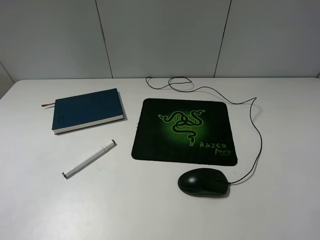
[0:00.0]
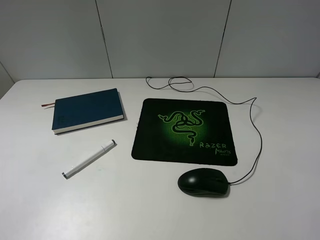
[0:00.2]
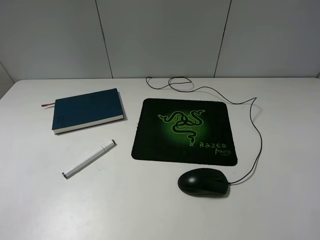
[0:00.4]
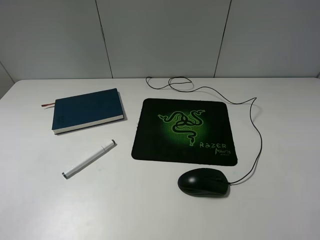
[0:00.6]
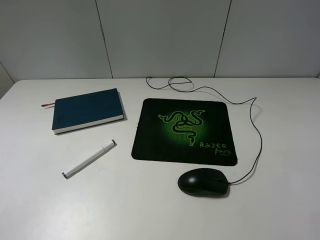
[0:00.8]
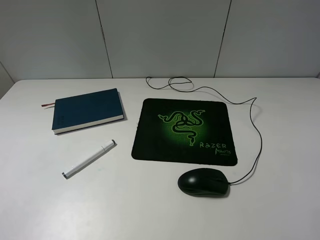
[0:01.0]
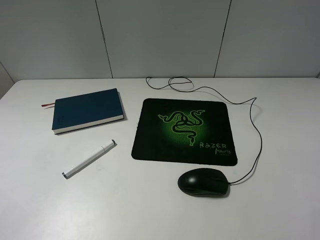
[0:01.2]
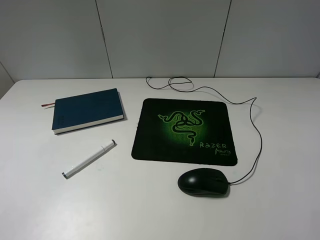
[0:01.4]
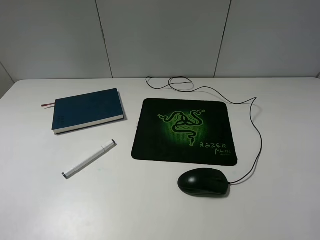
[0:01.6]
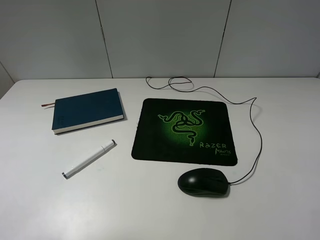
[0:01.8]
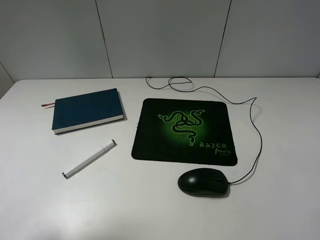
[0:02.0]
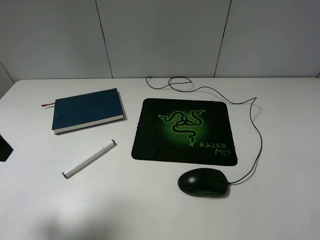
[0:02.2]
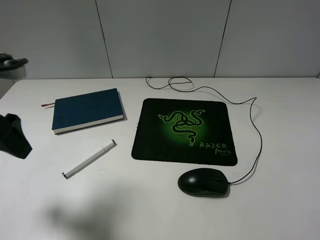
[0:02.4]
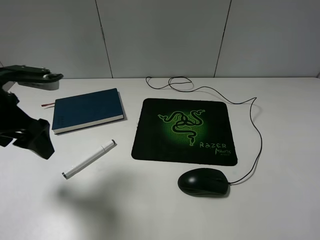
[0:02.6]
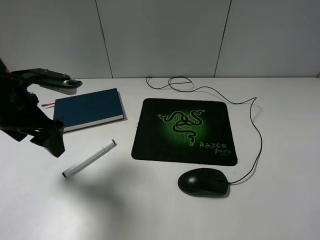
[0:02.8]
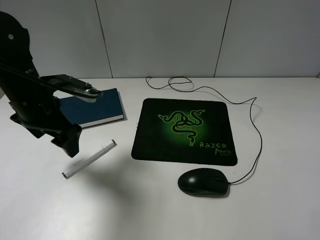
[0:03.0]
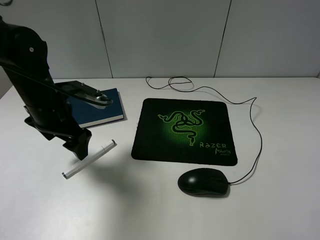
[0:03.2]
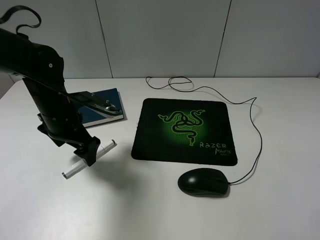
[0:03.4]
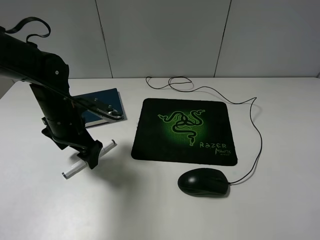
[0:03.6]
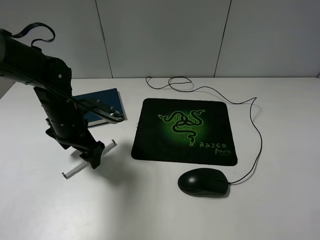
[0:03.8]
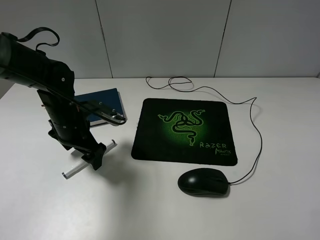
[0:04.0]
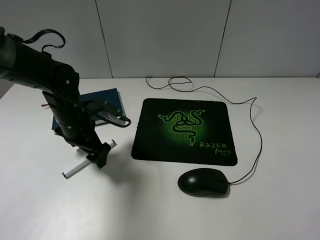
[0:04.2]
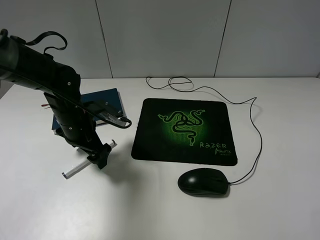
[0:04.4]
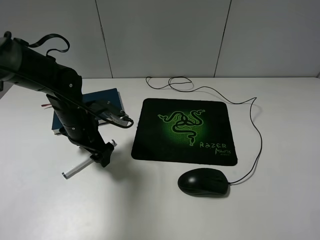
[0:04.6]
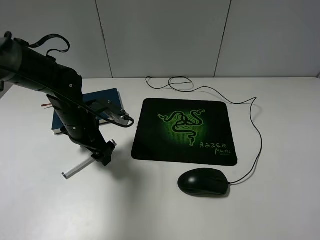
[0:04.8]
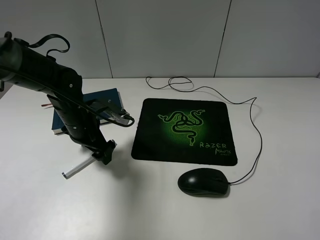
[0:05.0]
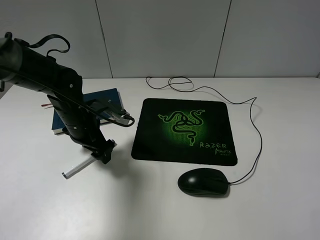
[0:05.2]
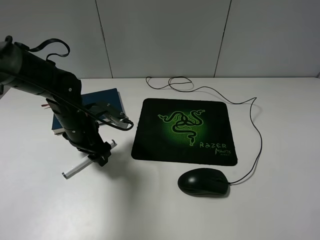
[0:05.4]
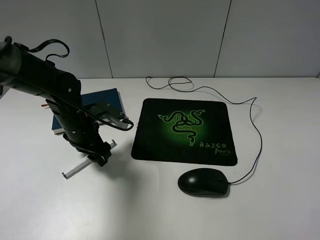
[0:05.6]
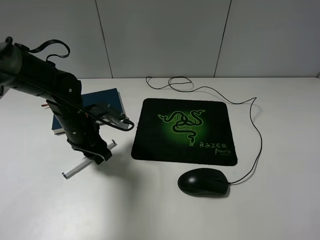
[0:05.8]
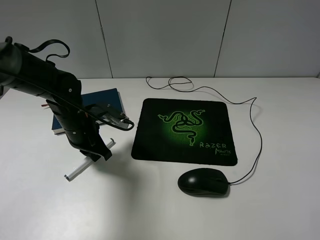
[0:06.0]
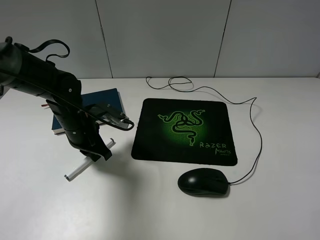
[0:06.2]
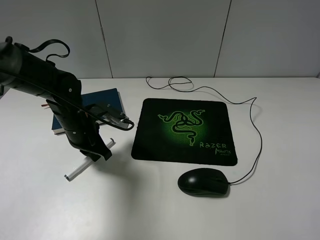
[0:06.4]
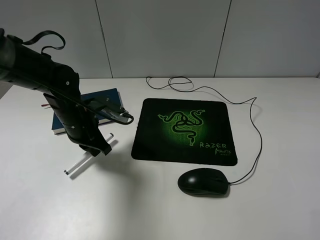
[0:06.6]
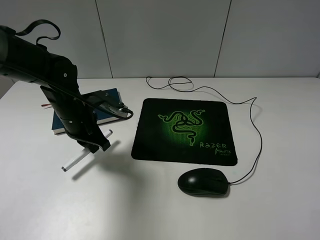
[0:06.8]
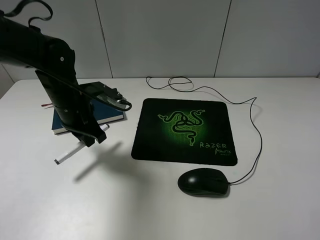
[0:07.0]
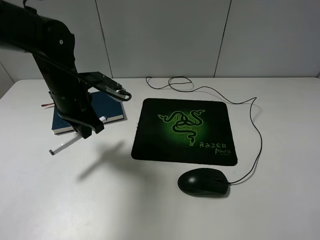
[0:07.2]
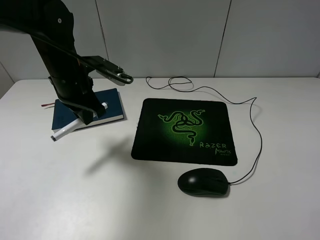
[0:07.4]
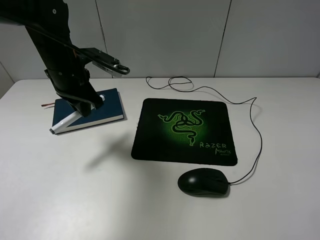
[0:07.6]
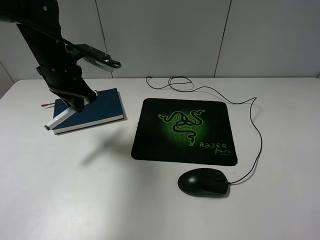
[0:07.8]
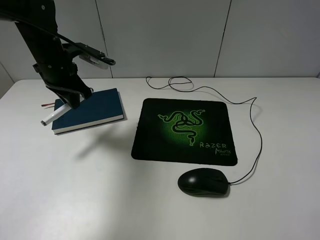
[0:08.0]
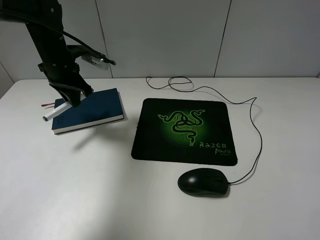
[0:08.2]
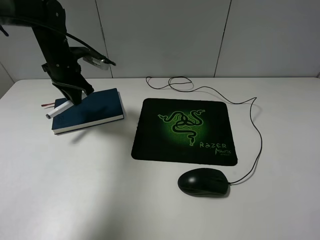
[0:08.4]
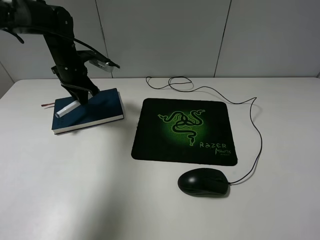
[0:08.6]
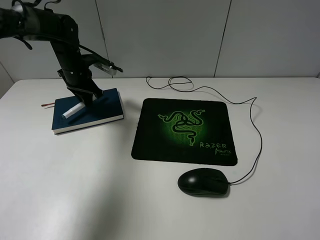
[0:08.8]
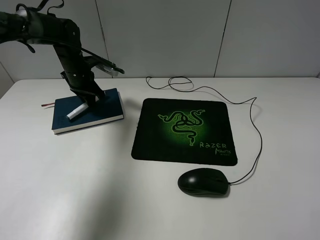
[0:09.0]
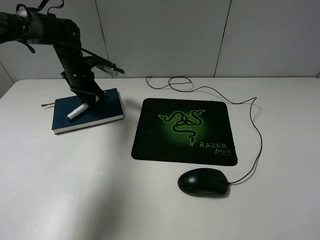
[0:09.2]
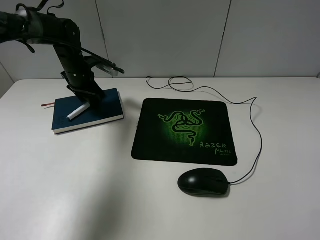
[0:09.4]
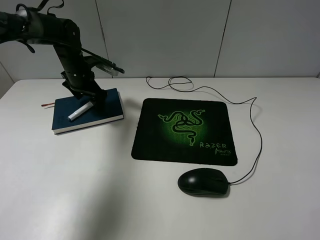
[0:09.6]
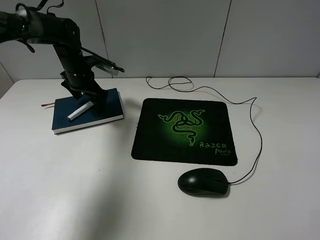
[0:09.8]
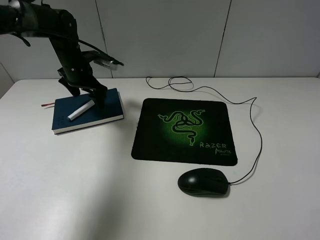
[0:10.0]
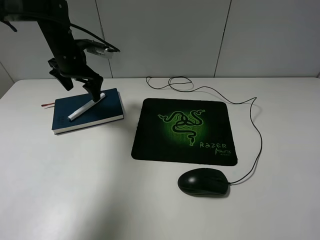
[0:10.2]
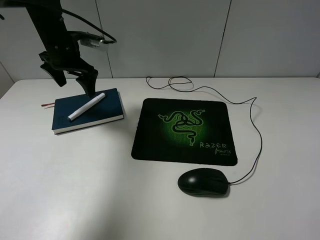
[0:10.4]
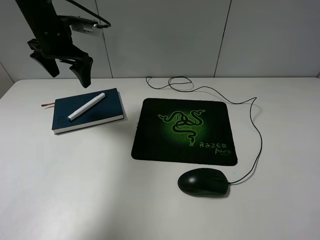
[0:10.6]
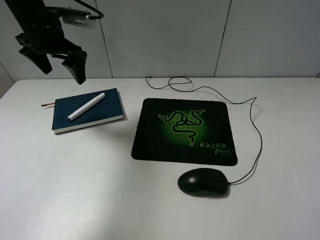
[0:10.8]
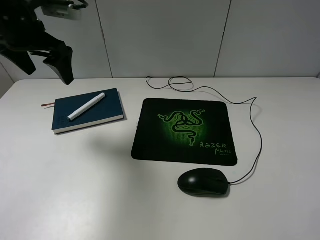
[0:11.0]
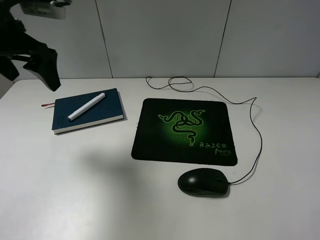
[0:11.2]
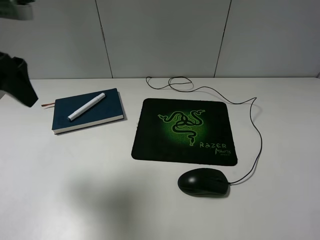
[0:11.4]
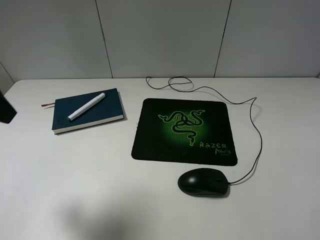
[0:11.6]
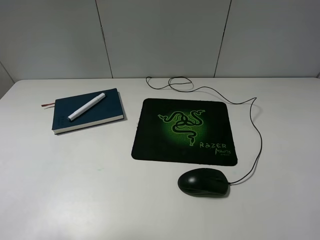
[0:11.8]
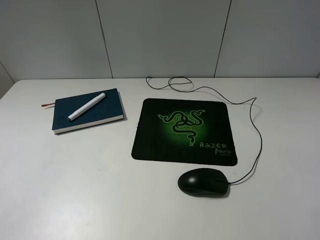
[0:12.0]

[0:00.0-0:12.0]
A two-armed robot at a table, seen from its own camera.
Step, 0:00.0 to 0:06.2: Grasp the marker with the left gripper.
Step, 0:06.4 to 0:09.6: Place the marker on the notebook with the left gripper.
0:01.6 to 0:03.0: The left gripper is displaced forward, downward and to the right by about 25 cm.
0:03.0 to 0:04.4: The left gripper moves downward, some 10 cm.
0:04.4 to 0:06.0: The left gripper closes.
0:06.0 to 0:07.6: The left gripper goes some 10 cm upward.
0:07.6 to 0:09.0: The left gripper heads forward and downward, covering roughly 15 cm.
0:09.0 to 0:10.4: The left gripper travels upward by approximately 10 cm, and opens up.
0:10.4 to 0:12.0: The left gripper goes about 40 cm backward.

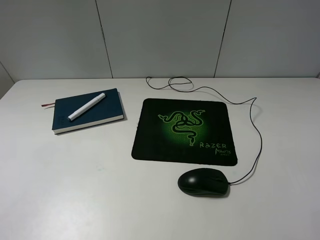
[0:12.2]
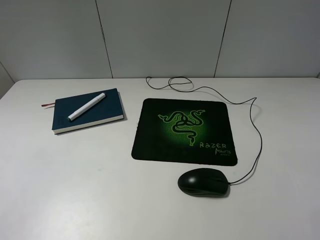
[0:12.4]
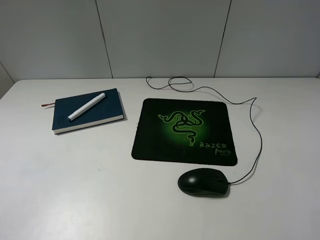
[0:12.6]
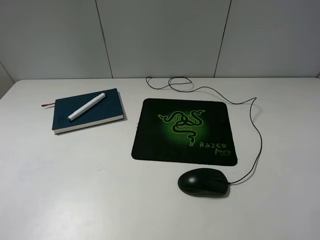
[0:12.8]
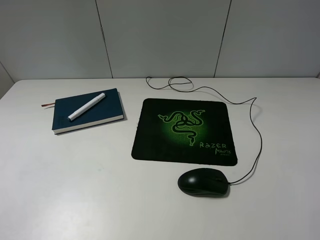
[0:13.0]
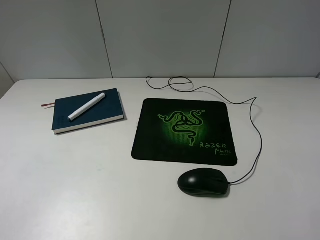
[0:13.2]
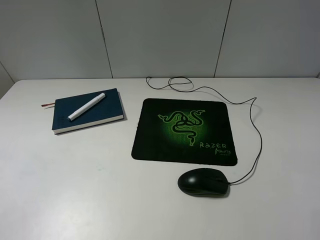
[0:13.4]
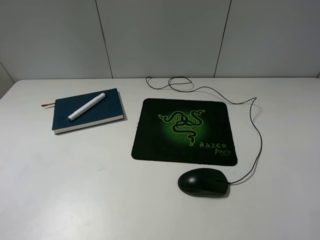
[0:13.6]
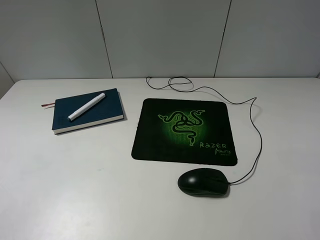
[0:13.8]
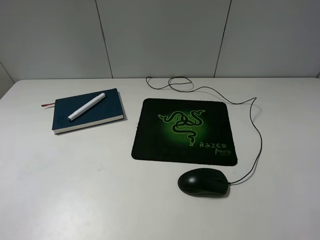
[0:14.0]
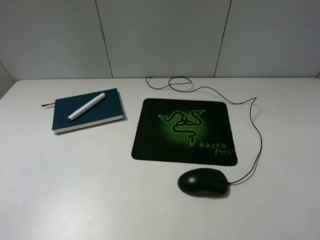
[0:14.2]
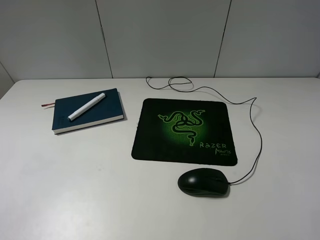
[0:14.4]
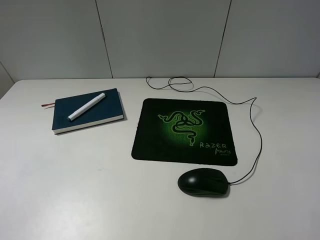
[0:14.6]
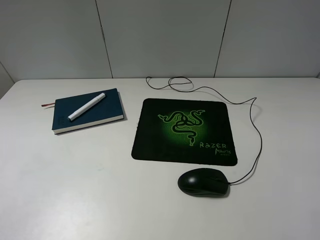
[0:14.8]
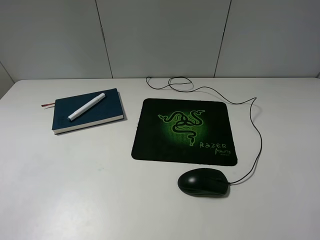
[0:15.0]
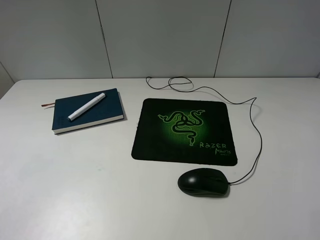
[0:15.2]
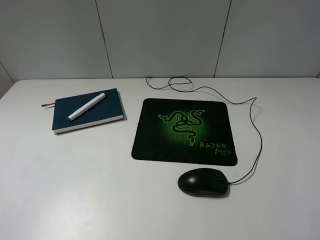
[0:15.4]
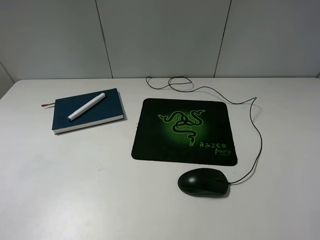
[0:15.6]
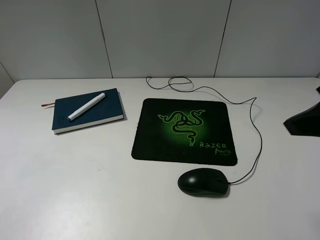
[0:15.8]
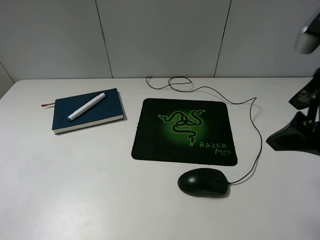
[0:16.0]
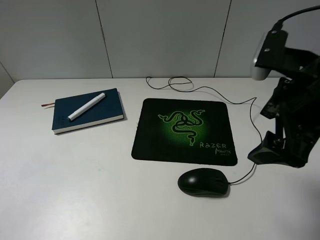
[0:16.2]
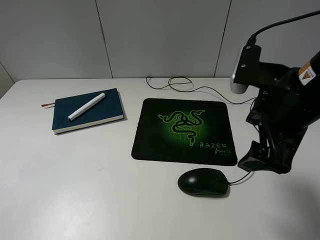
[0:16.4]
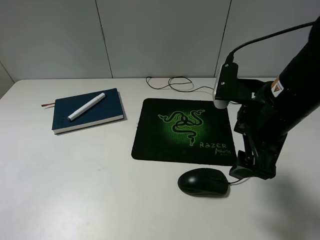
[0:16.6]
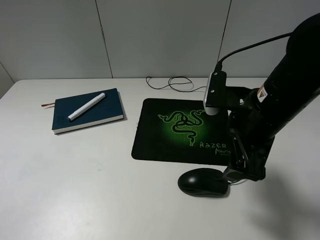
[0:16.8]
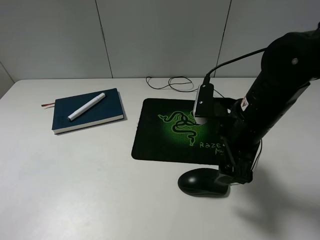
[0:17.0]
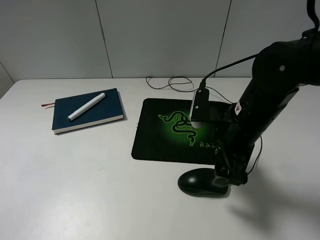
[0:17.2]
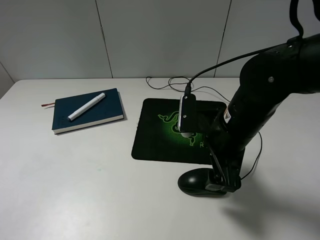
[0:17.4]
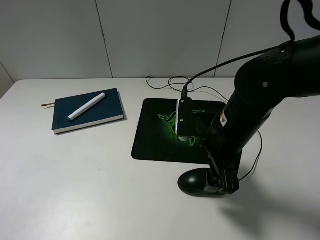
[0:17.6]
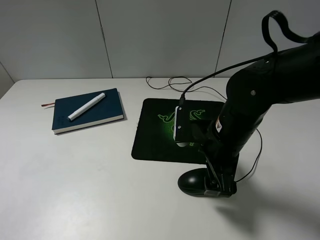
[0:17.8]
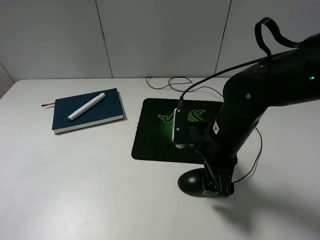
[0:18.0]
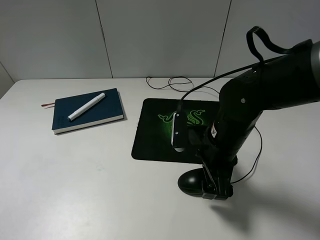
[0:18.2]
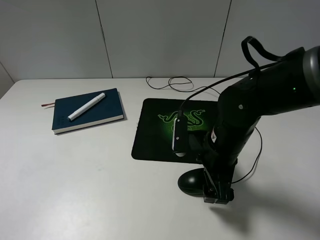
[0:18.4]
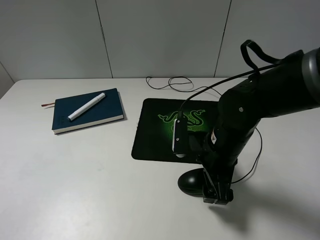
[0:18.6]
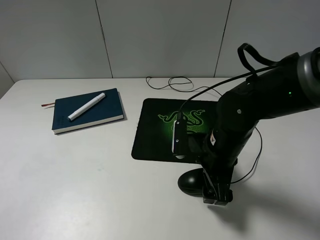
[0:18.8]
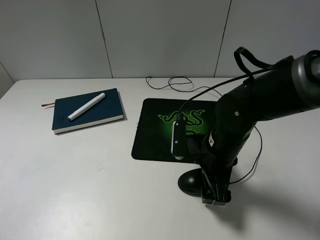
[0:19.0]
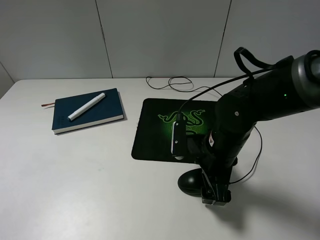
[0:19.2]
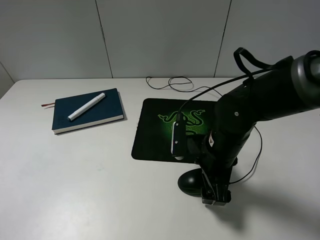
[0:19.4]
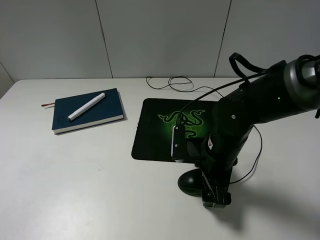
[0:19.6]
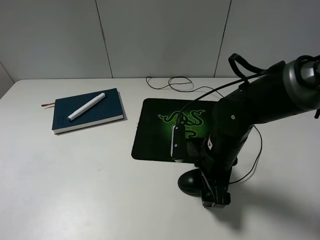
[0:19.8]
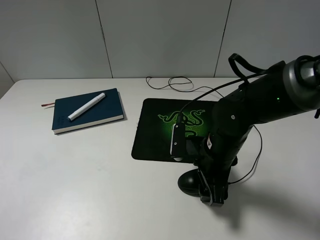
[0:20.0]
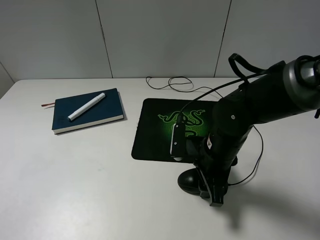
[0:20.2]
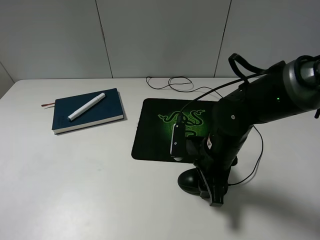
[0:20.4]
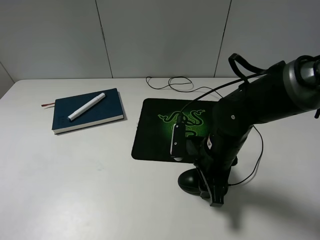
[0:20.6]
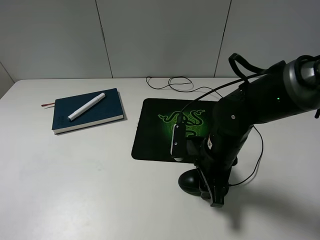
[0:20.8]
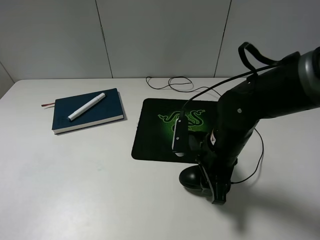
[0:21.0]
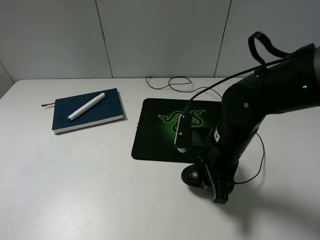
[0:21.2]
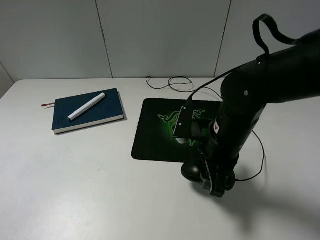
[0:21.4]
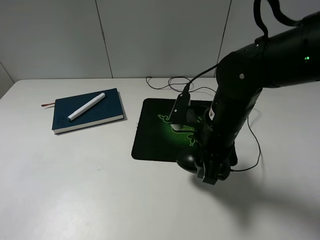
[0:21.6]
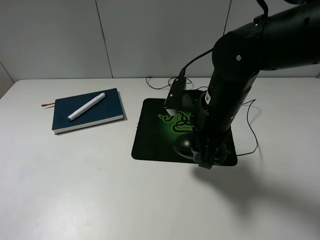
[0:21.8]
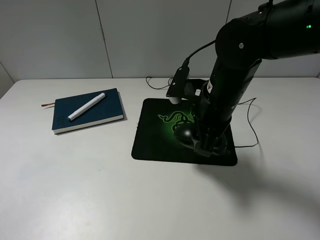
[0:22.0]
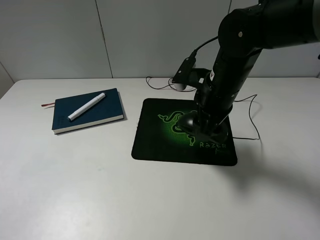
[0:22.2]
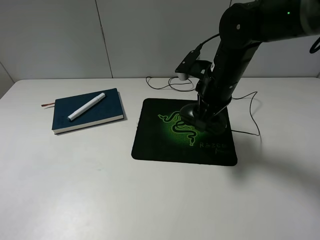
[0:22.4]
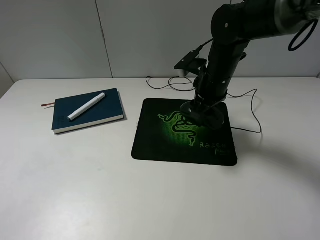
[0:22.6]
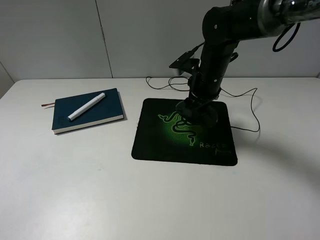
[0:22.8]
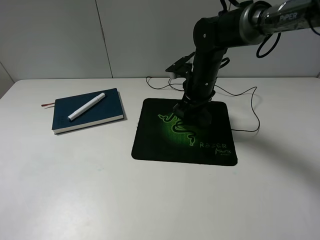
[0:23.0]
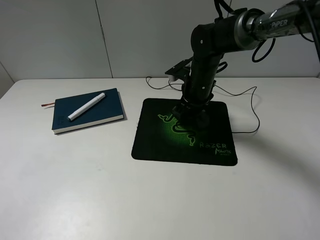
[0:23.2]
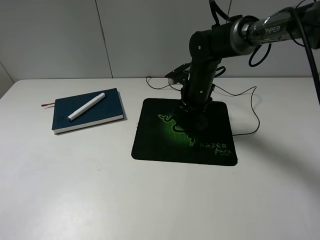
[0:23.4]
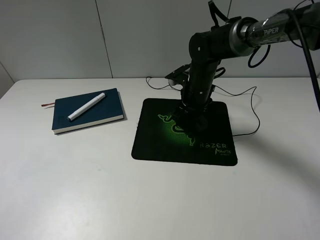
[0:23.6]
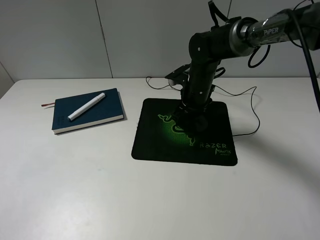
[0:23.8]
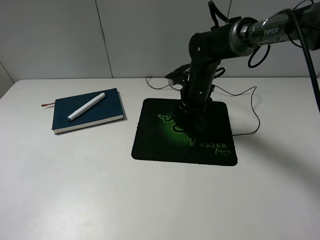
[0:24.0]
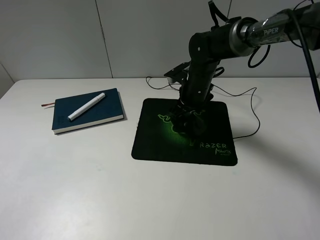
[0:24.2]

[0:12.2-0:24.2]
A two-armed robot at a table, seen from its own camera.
Step, 0:12.2 to 0:20.6: Grasp the mouse with the right gripper.
0:15.2 to 0:16.6: The right gripper goes some 25 cm forward, to the left and downward.
0:16.6 to 0:18.2: The right gripper travels downward by about 10 cm.
0:18.2 to 0:19.8: There are only small adjustments of the grippers.
0:19.8 to 0:21.2: The right gripper closes its fingers.
0:21.2 to 0:22.6: The right gripper travels forward by approximately 15 cm.
0:22.6 to 0:24.2: The right gripper travels downward by some 5 cm, and opens its fingers.
